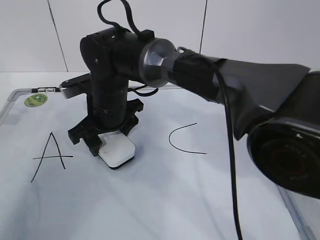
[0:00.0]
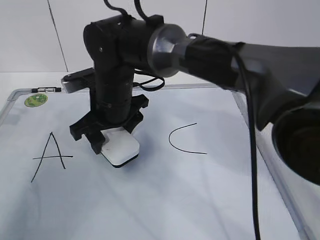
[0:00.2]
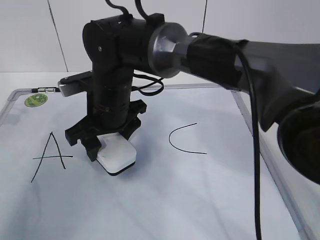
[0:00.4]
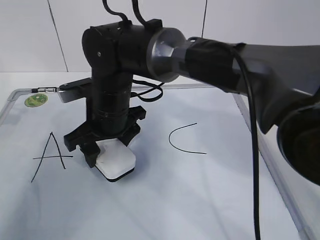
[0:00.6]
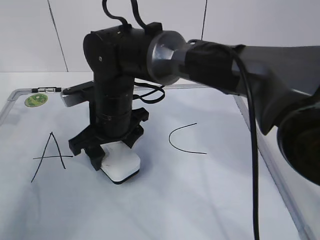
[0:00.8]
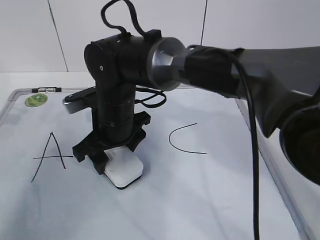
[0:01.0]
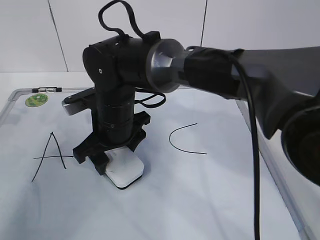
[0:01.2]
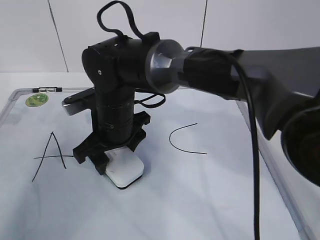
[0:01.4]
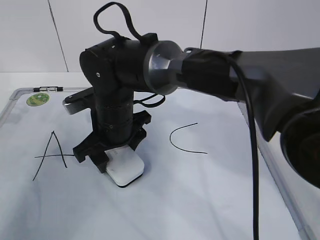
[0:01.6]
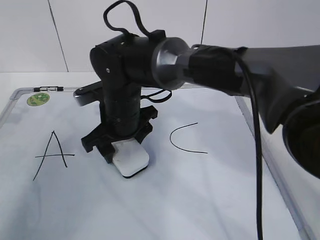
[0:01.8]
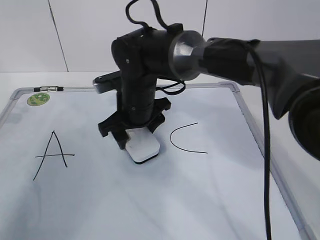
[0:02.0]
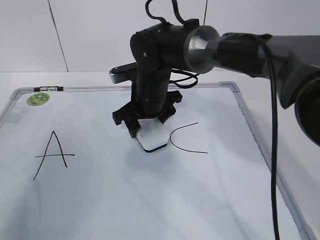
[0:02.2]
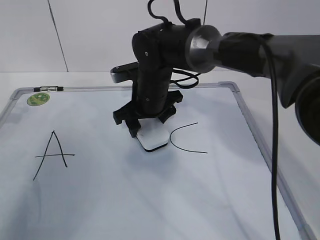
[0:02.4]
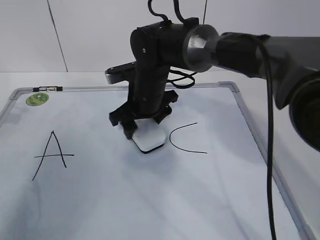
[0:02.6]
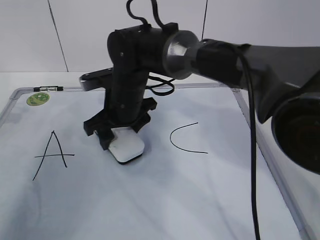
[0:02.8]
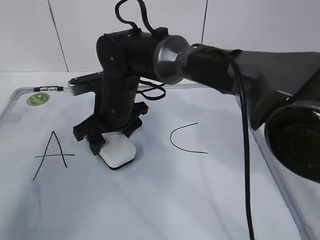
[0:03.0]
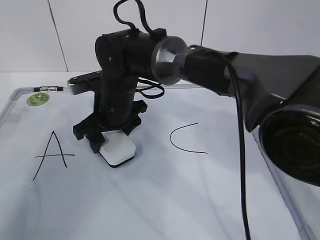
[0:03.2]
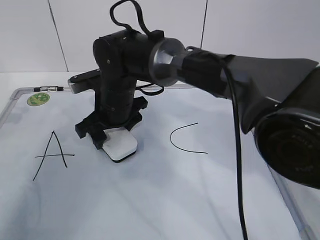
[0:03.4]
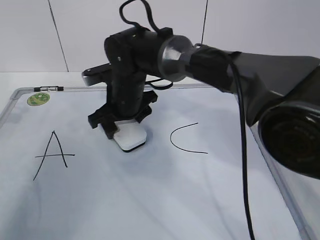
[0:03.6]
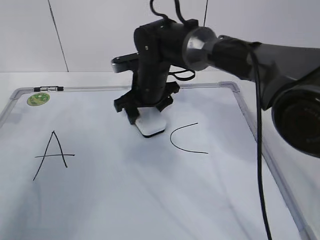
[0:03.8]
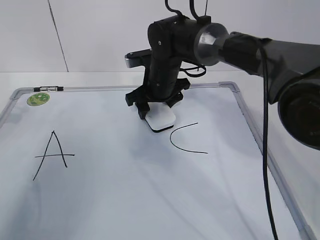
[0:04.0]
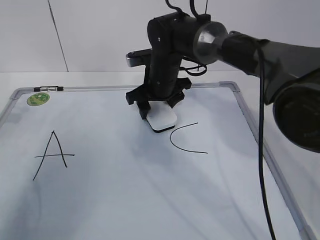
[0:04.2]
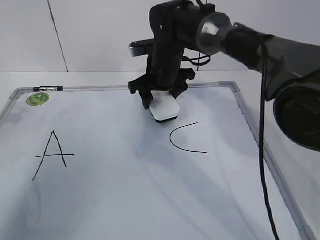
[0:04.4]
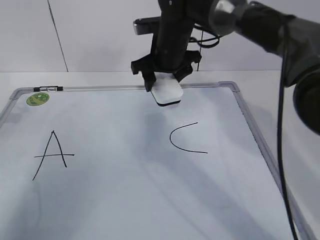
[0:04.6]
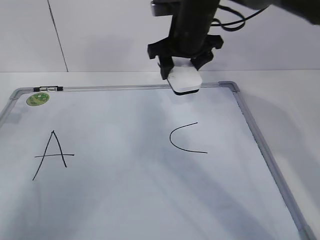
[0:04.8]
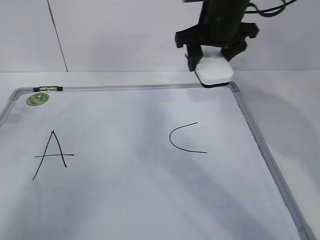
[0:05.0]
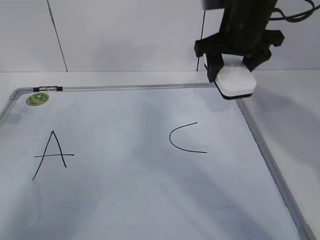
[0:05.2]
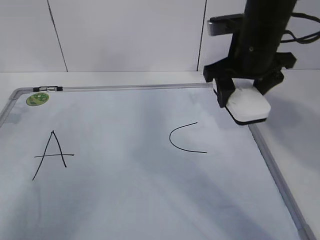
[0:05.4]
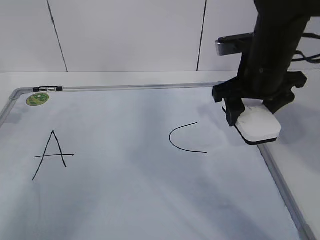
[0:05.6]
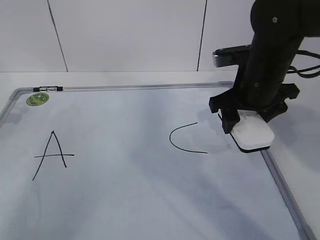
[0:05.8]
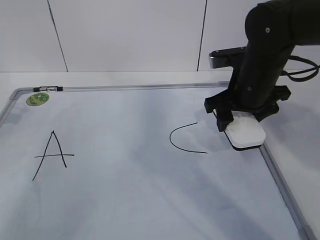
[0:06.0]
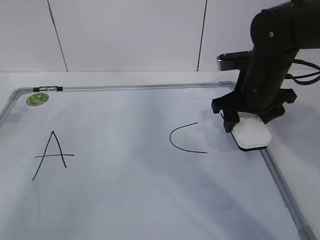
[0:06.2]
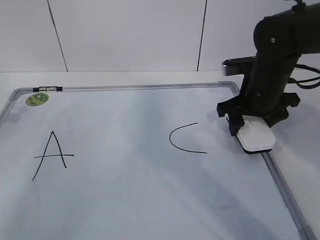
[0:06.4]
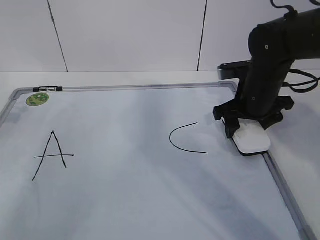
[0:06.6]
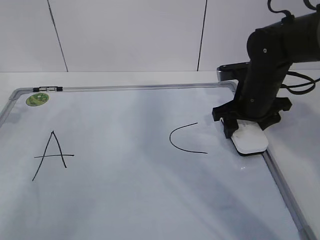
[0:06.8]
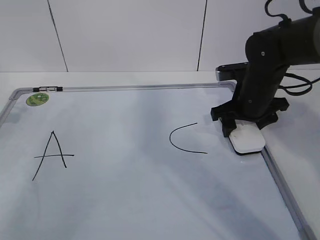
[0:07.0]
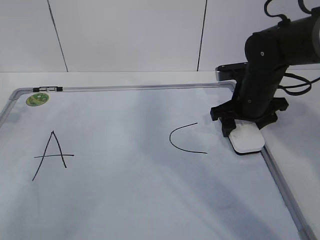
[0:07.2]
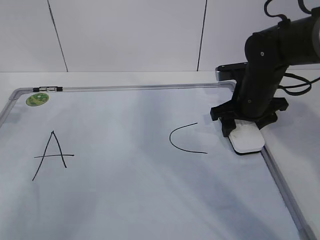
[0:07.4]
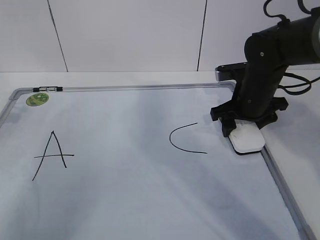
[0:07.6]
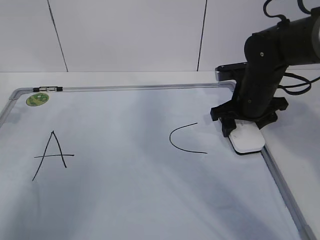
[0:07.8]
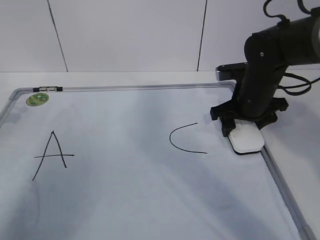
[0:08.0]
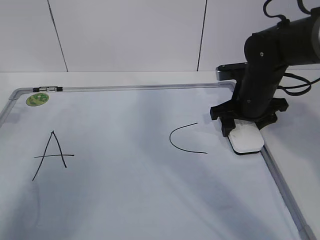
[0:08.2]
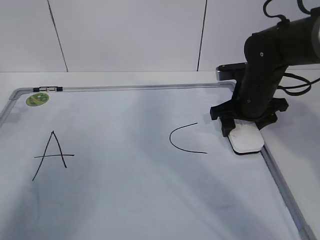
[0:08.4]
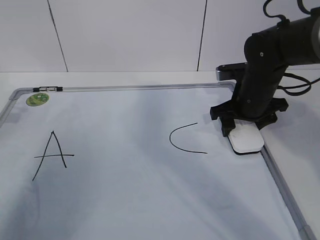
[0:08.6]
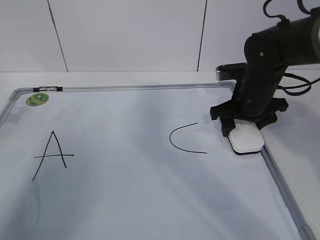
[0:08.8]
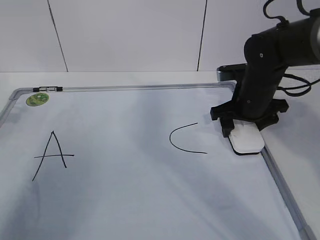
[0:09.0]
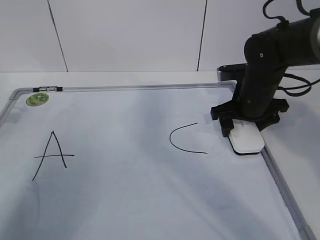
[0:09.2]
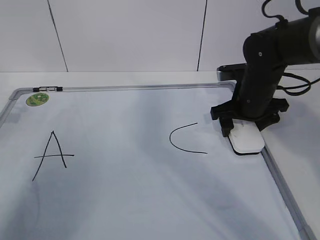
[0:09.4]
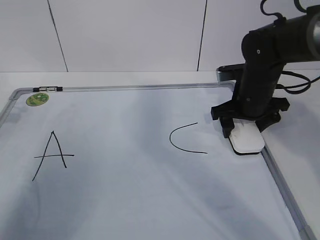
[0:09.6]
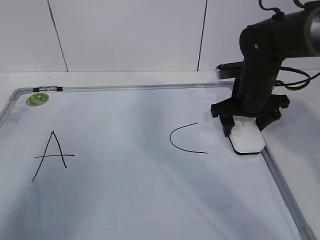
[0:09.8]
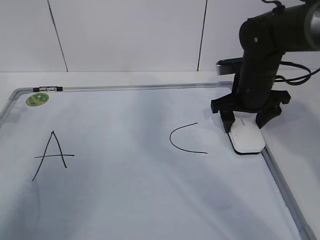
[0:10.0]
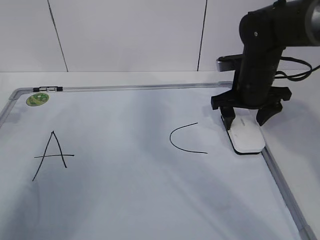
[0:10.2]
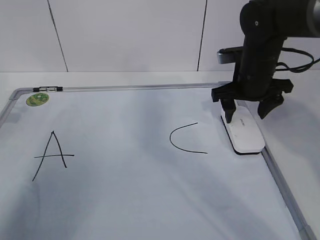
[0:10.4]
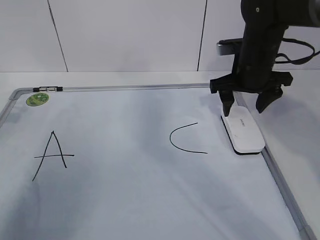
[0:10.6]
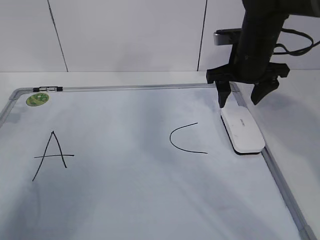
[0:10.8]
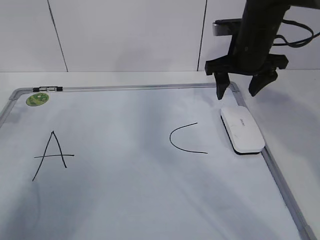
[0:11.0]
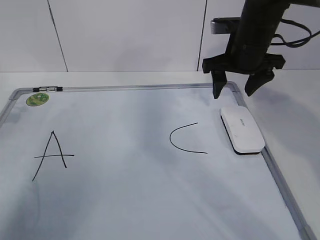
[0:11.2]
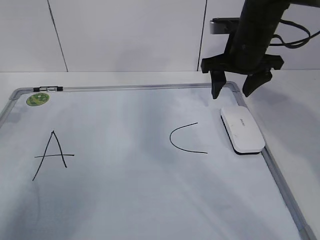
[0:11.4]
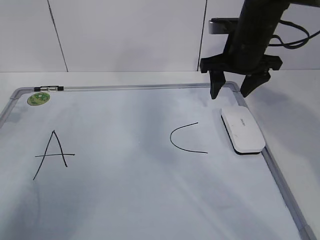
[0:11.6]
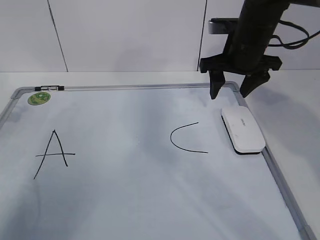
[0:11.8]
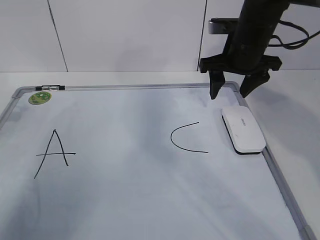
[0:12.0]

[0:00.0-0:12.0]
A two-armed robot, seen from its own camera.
Task of the whole recording: pick up the eraser on the blackboard and erase the letter "B".
Step, 0:00.4 to 0:04.8: Put down the eraser with your right hand.
0:03.0 to 0:04.4: The right gripper is displaced to the right and forward by roughly 10 cm.
0:04.4 to 0:06.0: The right gripper heads to the right and backward, covering about 15 cm.
0:06.0 to 0:07.6: The right gripper travels downward by about 5 cm.
0:07.6 to 0:09.0: The right gripper opens.
0:09.0 to 0:10.4: The grippers stay close to where they were, moving slightly.
0:10.4 to 0:12.0: The right gripper ends up approximately 5 cm from where it was.

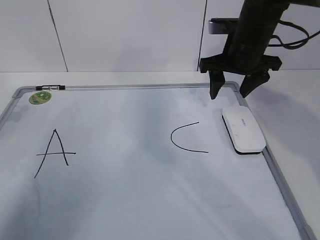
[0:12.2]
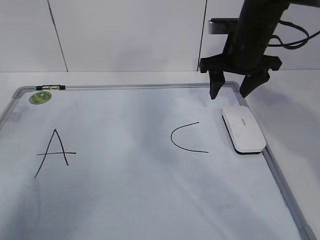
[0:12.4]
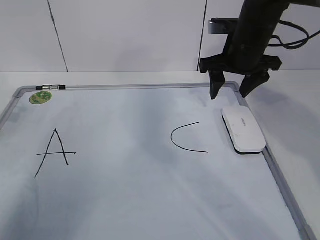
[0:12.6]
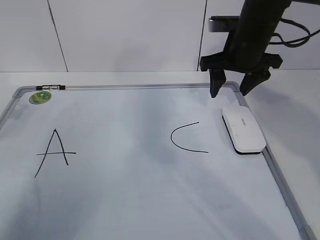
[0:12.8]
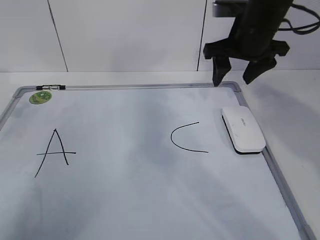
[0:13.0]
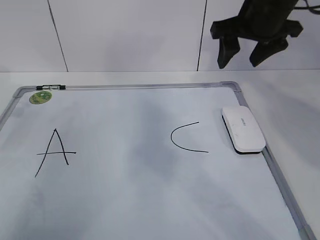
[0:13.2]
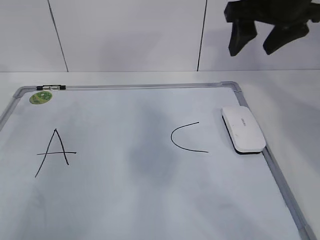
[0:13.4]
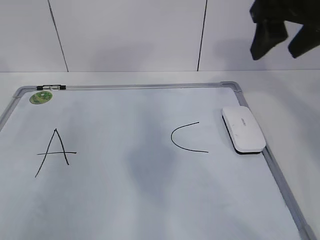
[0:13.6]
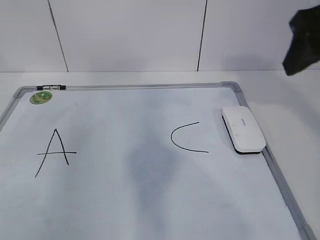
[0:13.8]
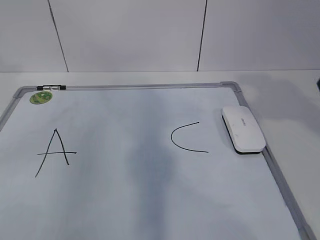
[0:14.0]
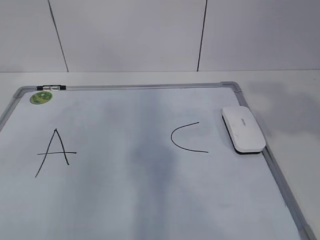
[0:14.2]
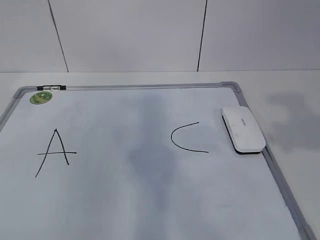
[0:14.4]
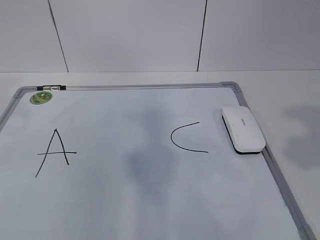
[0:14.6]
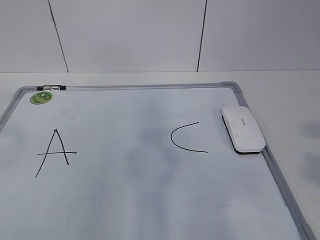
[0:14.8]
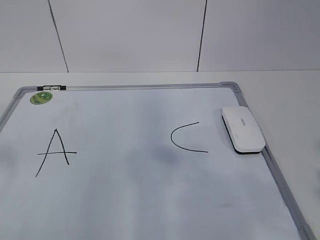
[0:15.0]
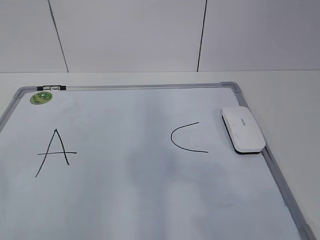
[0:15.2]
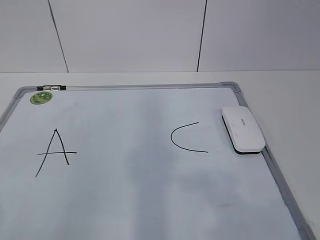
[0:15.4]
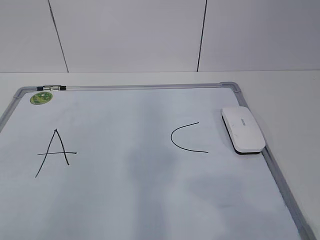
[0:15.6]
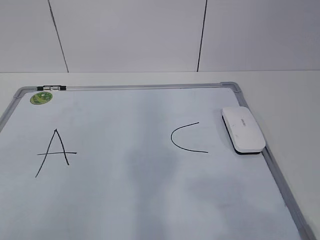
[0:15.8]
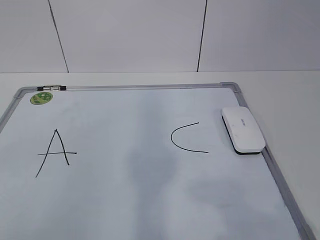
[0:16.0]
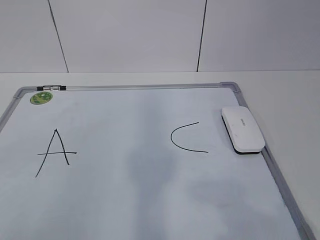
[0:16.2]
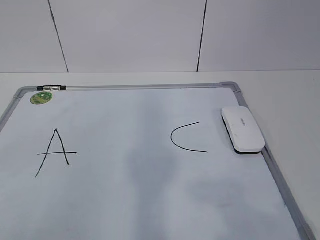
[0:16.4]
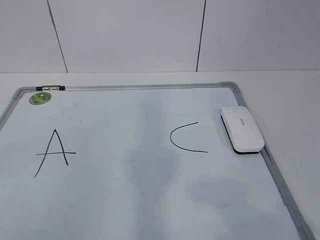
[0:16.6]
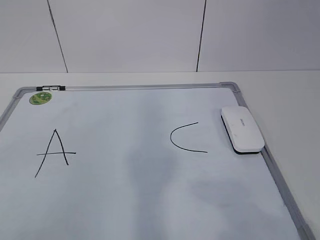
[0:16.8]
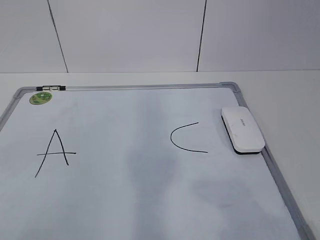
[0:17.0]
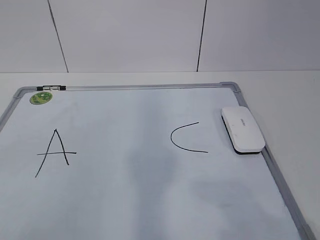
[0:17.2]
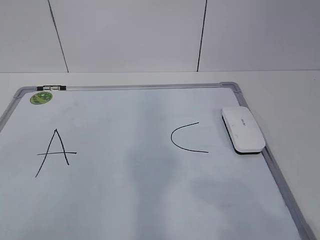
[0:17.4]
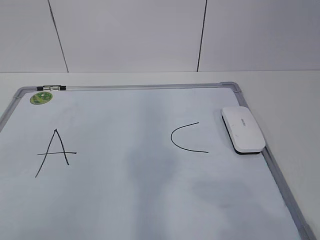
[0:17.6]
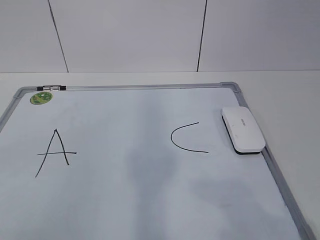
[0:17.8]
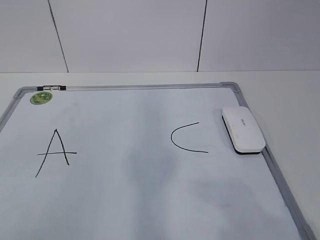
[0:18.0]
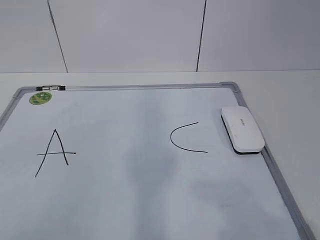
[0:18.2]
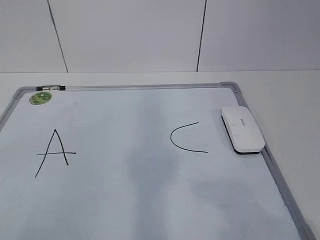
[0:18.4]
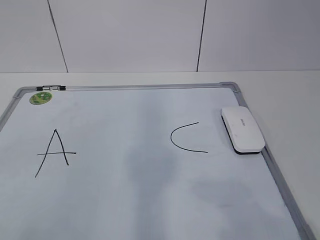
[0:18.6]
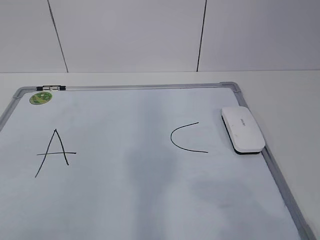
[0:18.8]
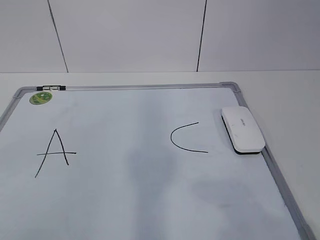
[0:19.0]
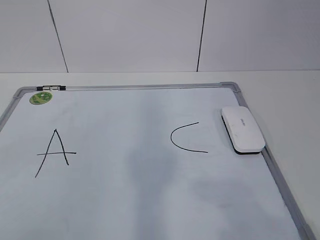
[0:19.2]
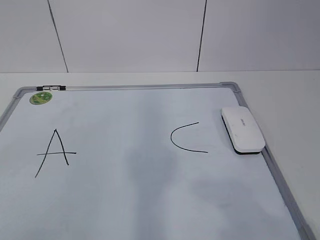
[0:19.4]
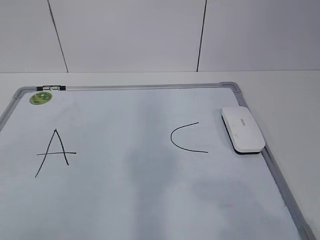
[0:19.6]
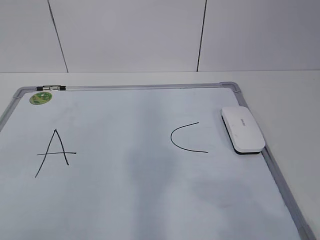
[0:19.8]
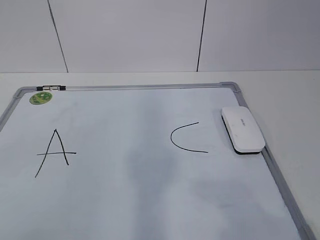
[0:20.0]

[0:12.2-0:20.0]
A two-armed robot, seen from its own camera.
Task of the whole recording: pick up the eraser on the blackboard and erase the letter "B".
0:12.2 to 0:13.8: The right gripper goes some 20 cm backward and upward; the left gripper is displaced upward by some 10 cm, and opens.
0:13.8 to 0:15.4: The right gripper shifts some 25 cm backward.
0:16.8 to 0:18.4: Both grippers stay about where they are.
